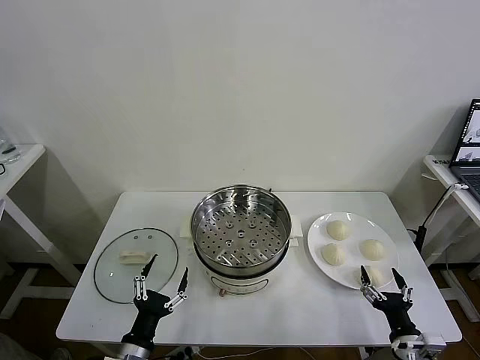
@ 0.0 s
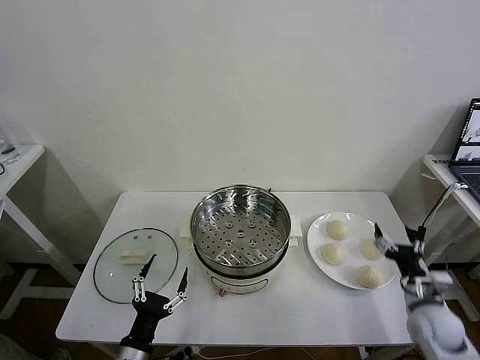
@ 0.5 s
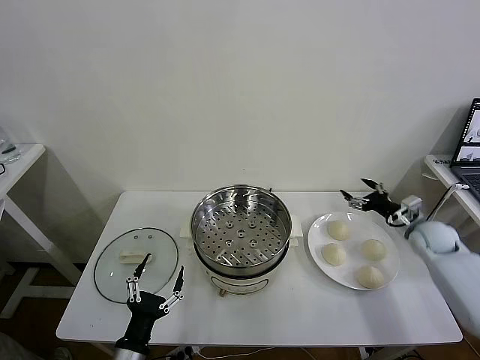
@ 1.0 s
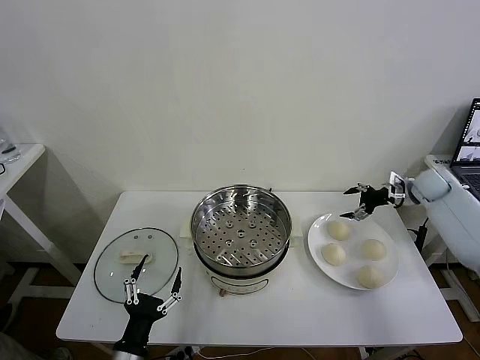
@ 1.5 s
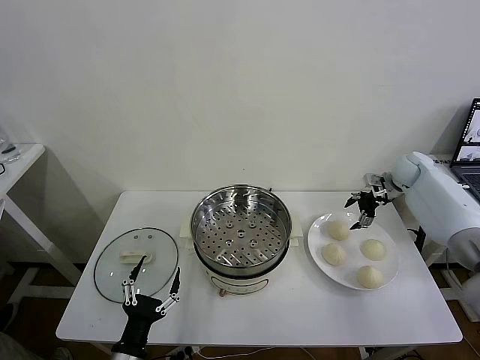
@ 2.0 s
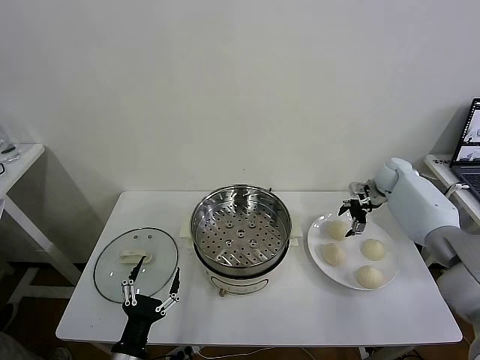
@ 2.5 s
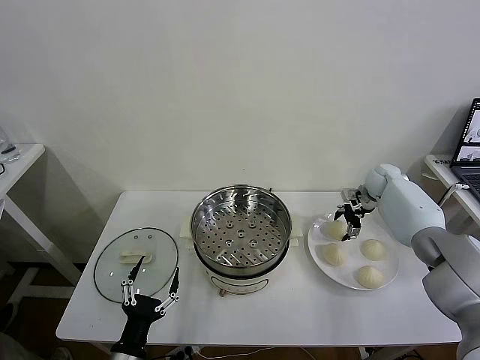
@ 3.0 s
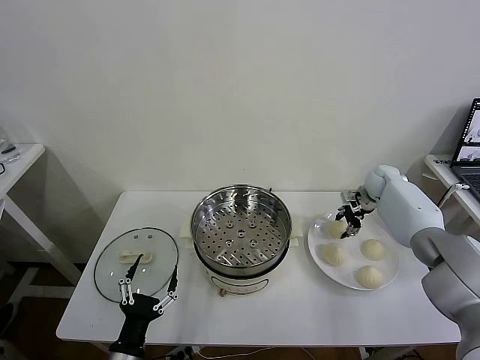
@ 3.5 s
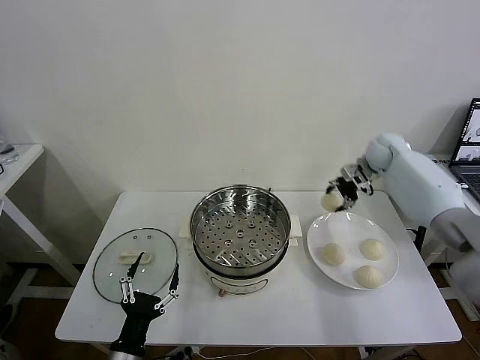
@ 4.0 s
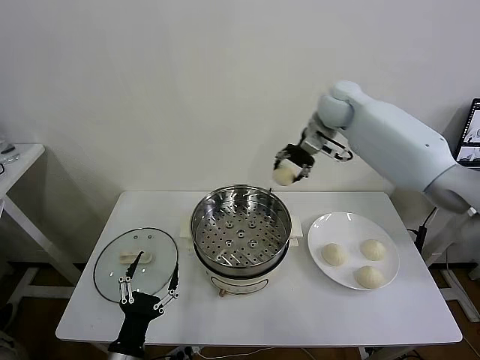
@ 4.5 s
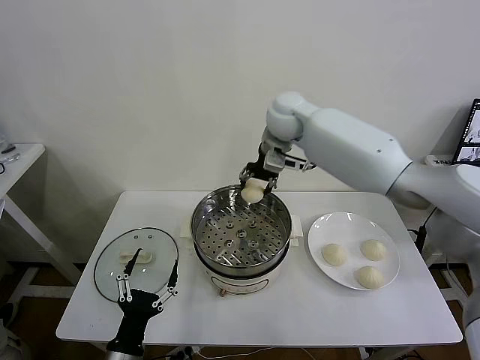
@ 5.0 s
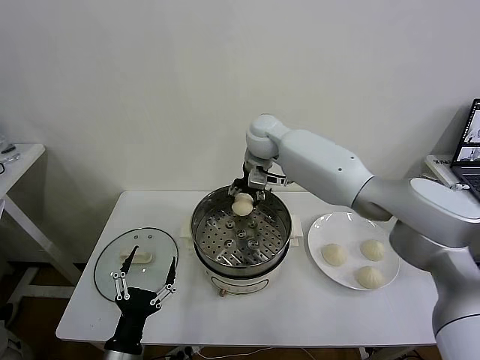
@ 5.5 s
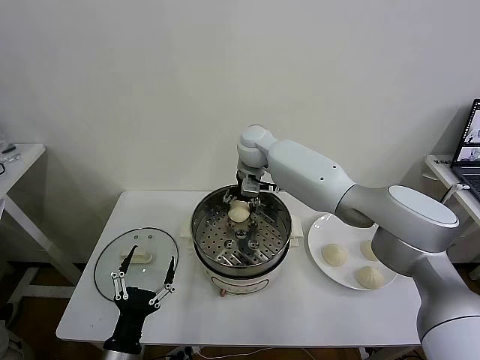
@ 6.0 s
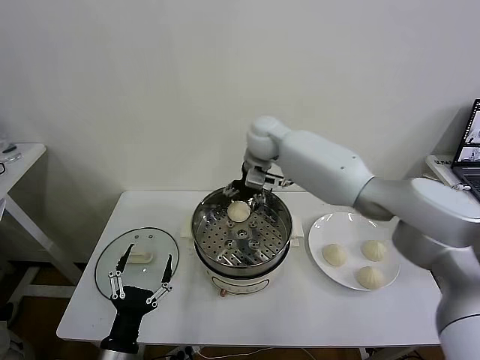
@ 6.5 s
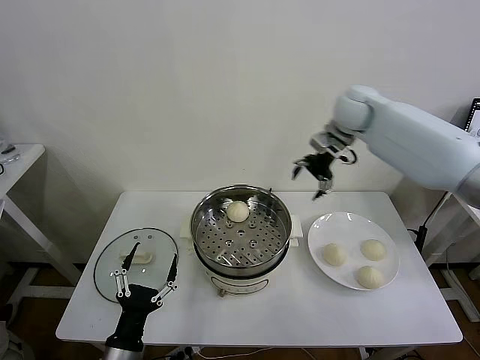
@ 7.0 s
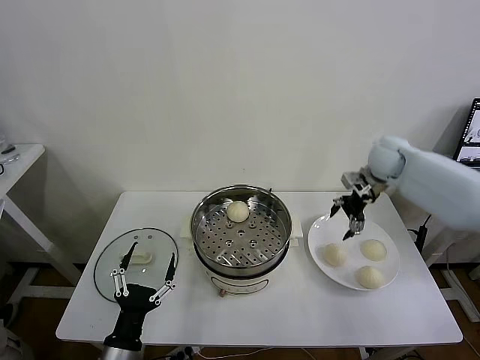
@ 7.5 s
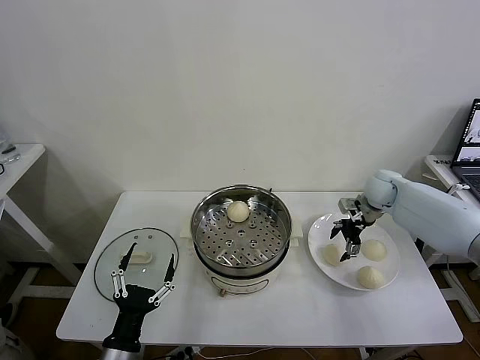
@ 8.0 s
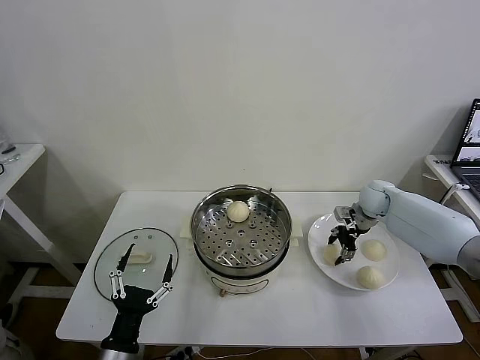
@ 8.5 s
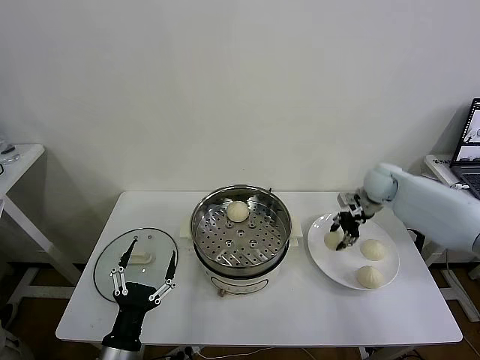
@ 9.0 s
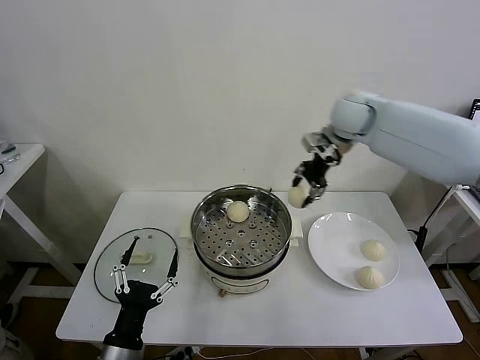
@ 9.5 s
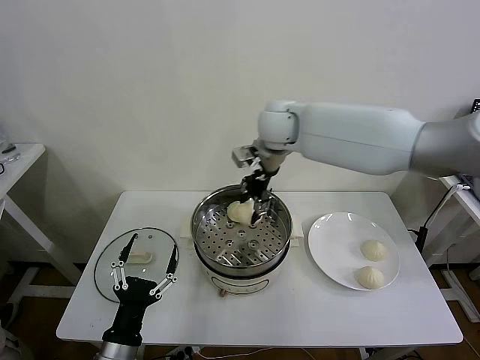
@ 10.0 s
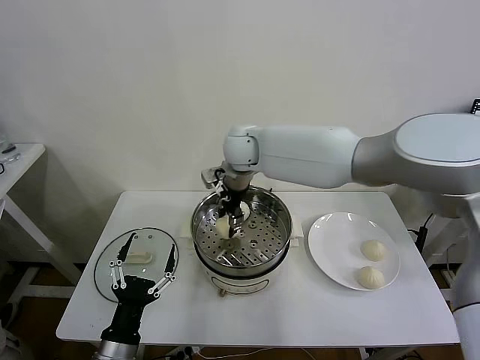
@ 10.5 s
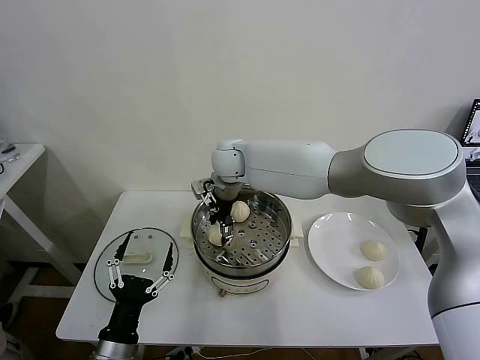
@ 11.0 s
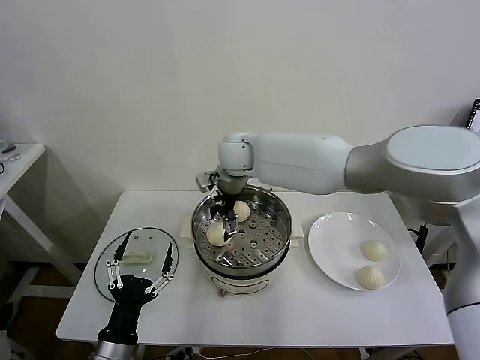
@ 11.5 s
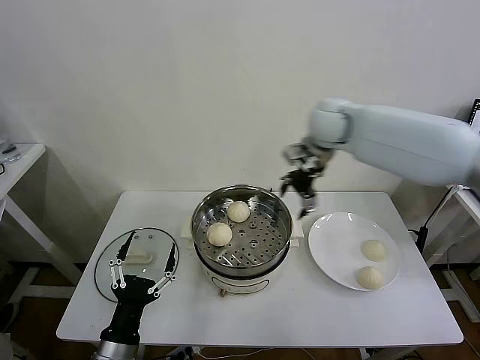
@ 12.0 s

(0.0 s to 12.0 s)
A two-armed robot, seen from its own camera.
Task of the whole recording: take steamed baozi put them in steamer then cover it.
Step, 0.0 s - 3.0 s: Grasp the baozi in the plate with right gripper.
Step, 4.0 s - 6.0 s: Place the baozi on the steamer with right gripper.
Step, 6.5 s - 8.5 s: Grasp the baozi in the plate with right gripper.
Step, 9.0 s - 11.0 s: Place the baozi on the steamer with right gripper.
2.0 s - 4.0 s: The right gripper shifts some 15 cm to the left and upward, and closes its fingers.
4.0 s - 6.0 s: The right gripper heads to the left, covering some 30 cm, and opens up.
6.0 s - 8.0 s: The right gripper moves to the right, roughly 35 cm.
8.0 s - 10.0 s: The right gripper shifts some 35 cm to the left and upward, and closes its fingers.
10.0 s - 12.0 s: The right gripper shifts roughly 15 cm to the right, and opens up.

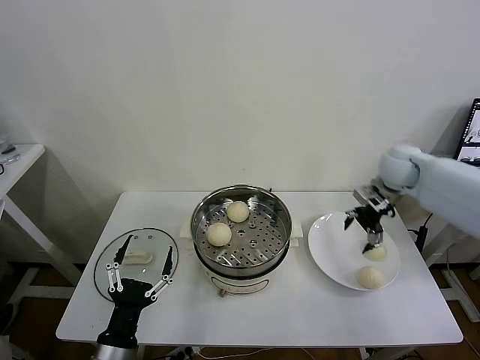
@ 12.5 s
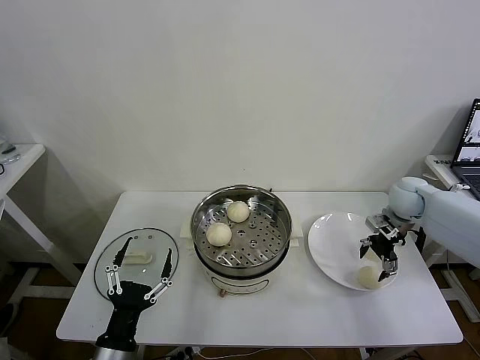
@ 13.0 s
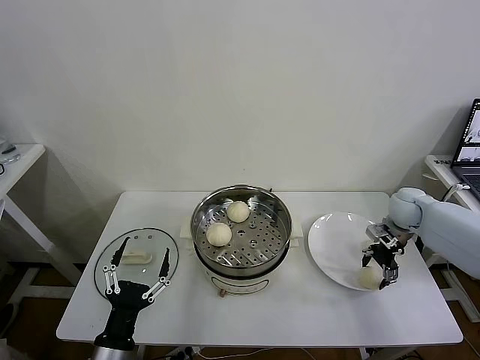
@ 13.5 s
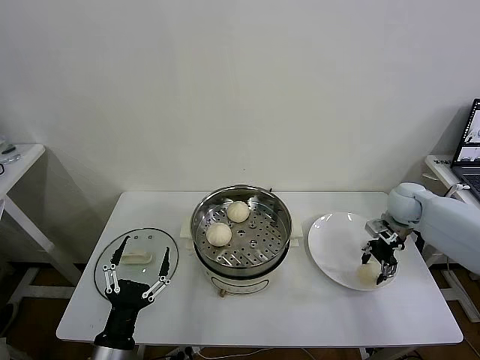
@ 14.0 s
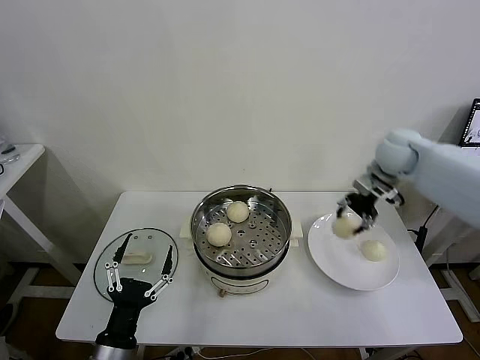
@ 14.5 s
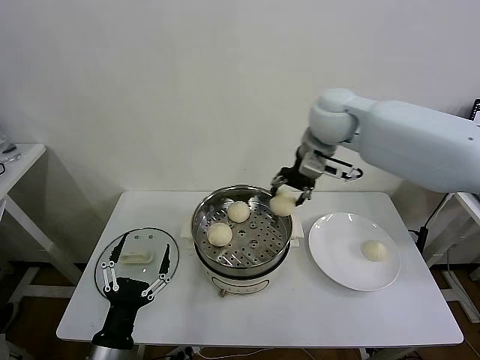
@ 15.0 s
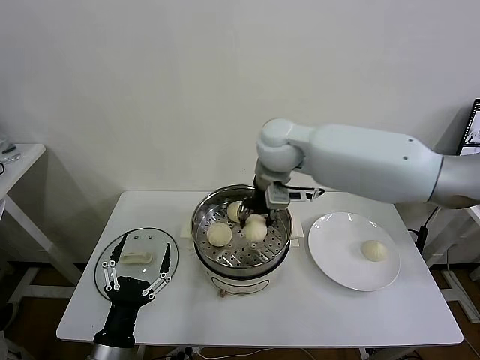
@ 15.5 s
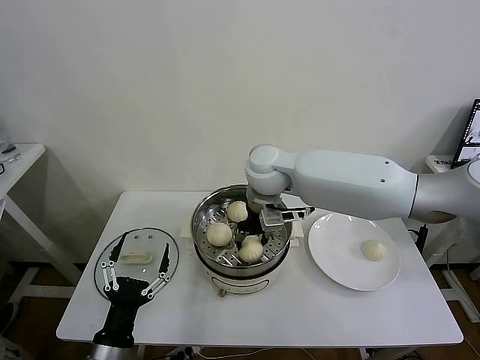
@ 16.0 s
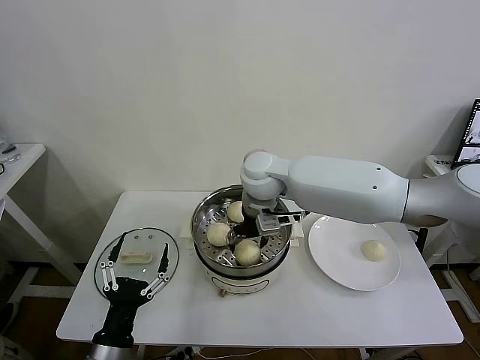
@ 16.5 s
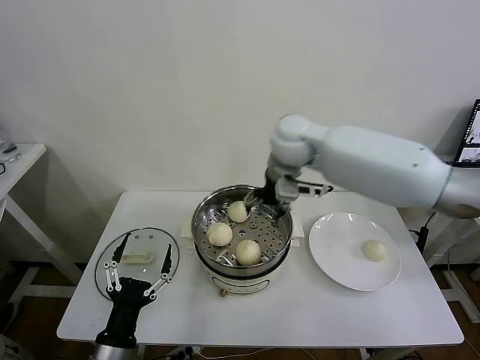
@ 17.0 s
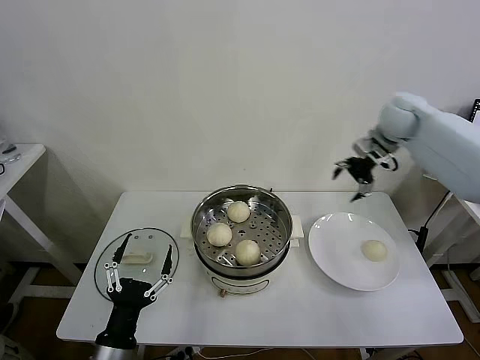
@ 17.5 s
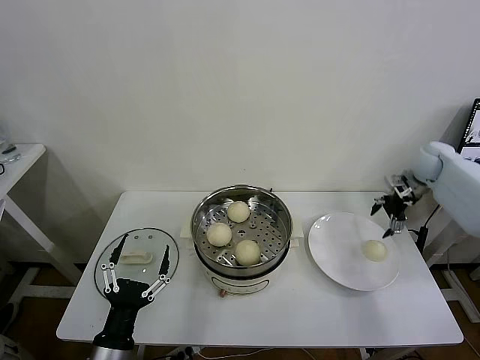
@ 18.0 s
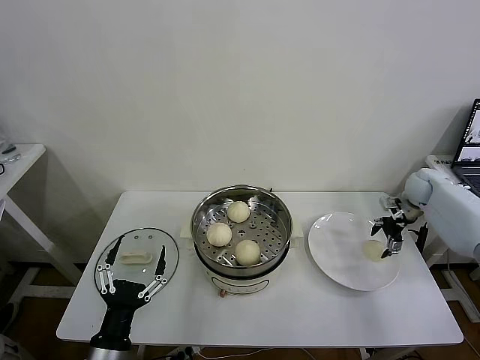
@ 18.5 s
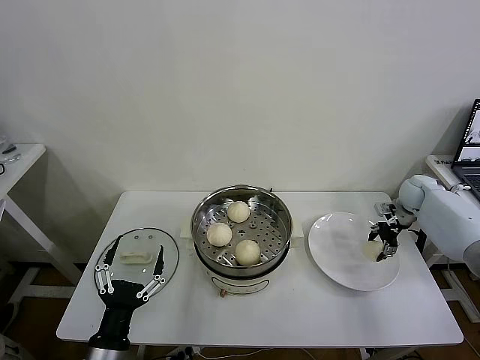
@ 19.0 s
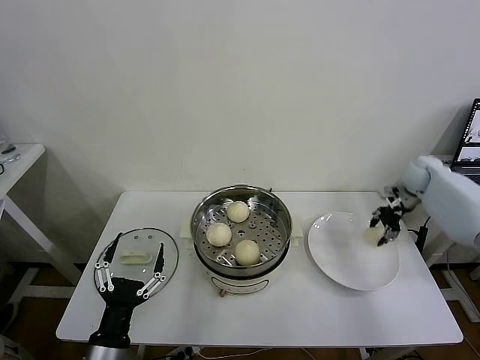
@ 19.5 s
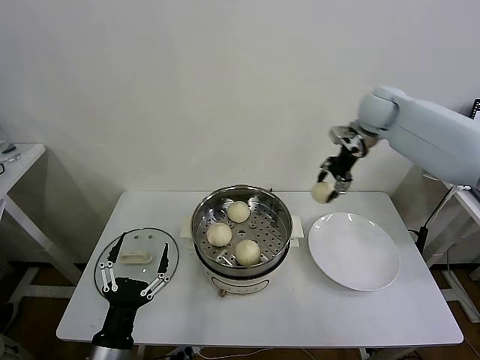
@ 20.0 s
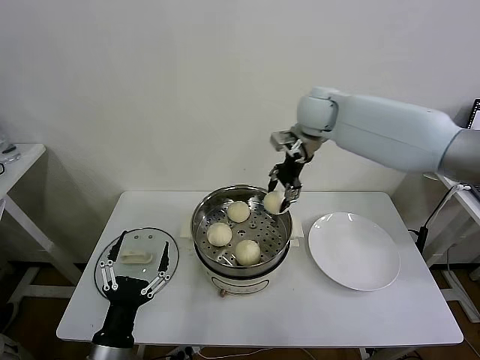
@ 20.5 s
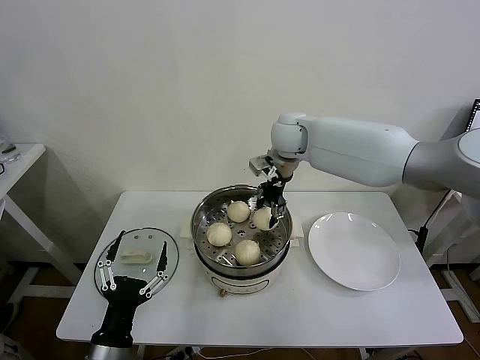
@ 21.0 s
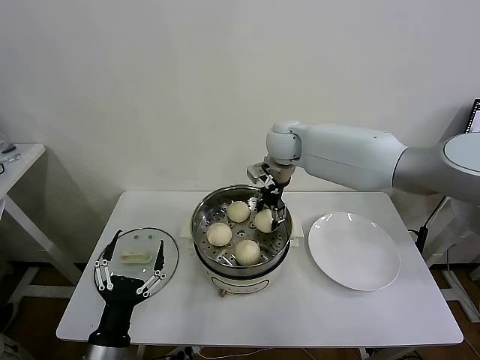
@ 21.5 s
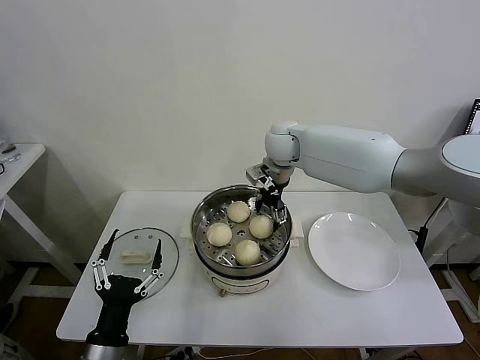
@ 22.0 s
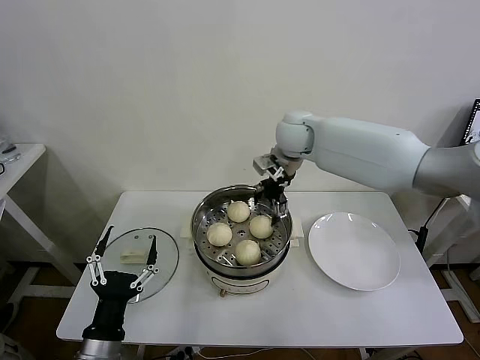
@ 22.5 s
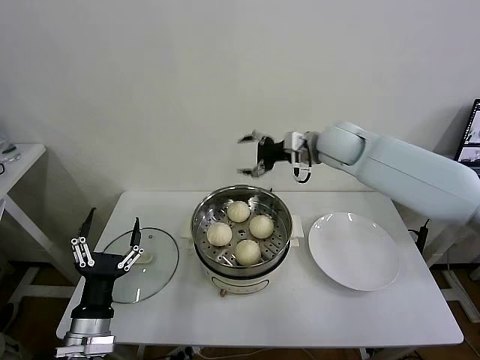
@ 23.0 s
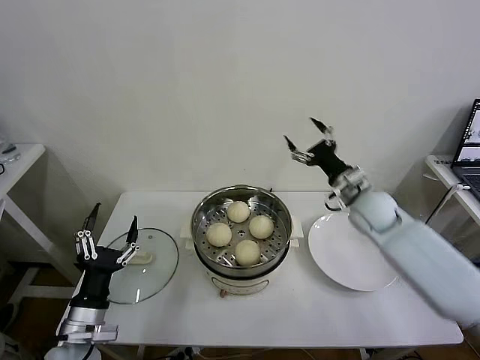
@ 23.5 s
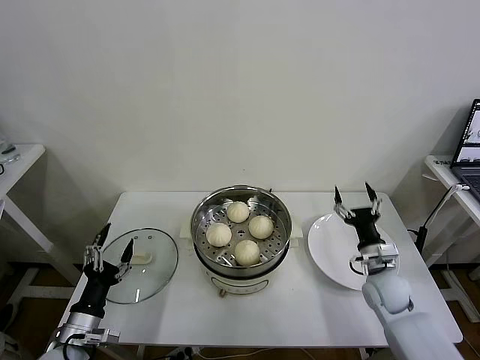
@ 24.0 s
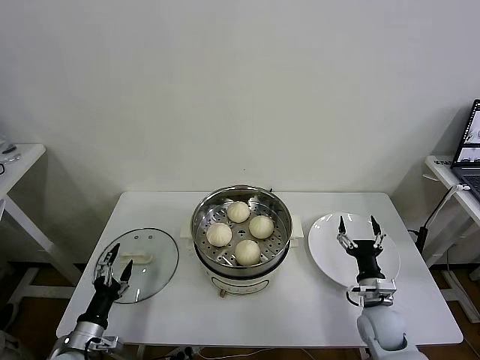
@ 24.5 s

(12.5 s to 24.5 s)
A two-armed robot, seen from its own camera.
Task of the whole recording: take steamed baozi put them in steamer then cover it.
Step, 14.0 s - 16.5 s: Place the baozi on the steamer with right gripper.
Step, 17.0 s - 19.0 s: Grasp the baozi in the plate with right gripper.
Step, 19.5 s - 22.0 s: Place the baozi on the steamer with right gripper.
12.5 s - 14.5 s: The right gripper moves upward, roughly 5 cm, and closes up.
14.5 s - 16.5 s: The right gripper is displaced to the left by about 30 cm, and opens up.
16.5 s - 18.5 s: The right gripper heads to the right, covering about 40 cm.
18.5 s - 20.5 s: The right gripper heads to the left and upward, covering approximately 40 cm, and closes.
20.5 s - 22.5 s: The right gripper opens its fingers.
22.5 s - 24.5 s: The left gripper moves to the left, downward and forward, approximately 15 cm, while the right gripper moves downward, backward and to the right, approximately 50 cm.

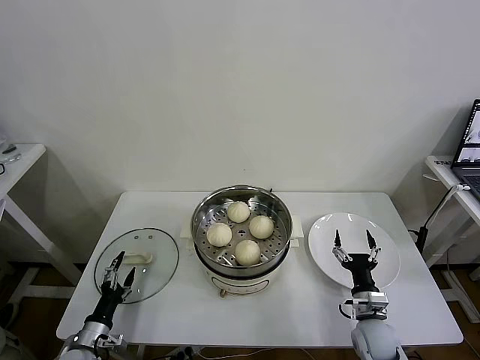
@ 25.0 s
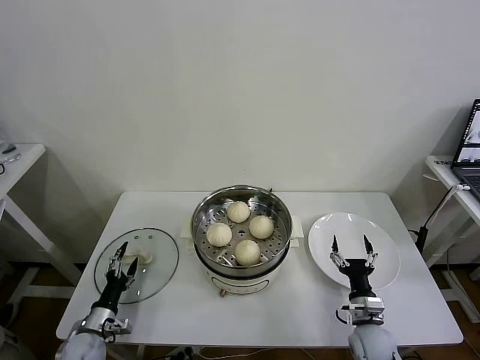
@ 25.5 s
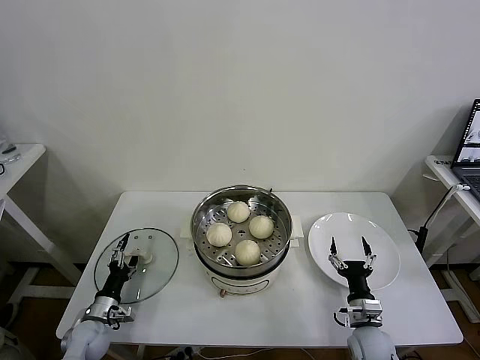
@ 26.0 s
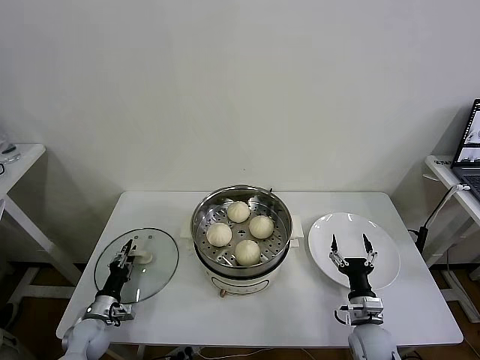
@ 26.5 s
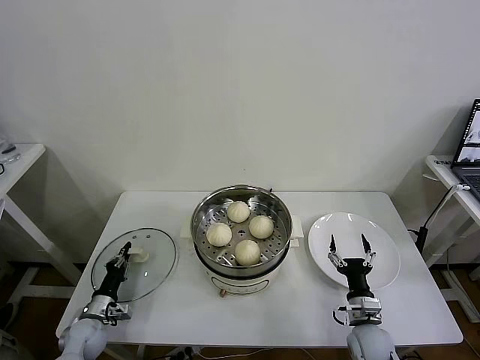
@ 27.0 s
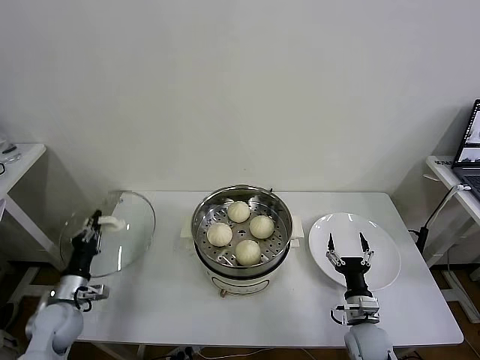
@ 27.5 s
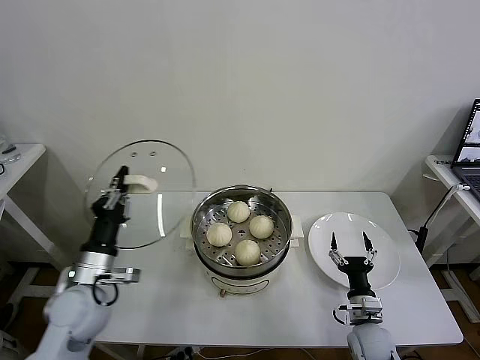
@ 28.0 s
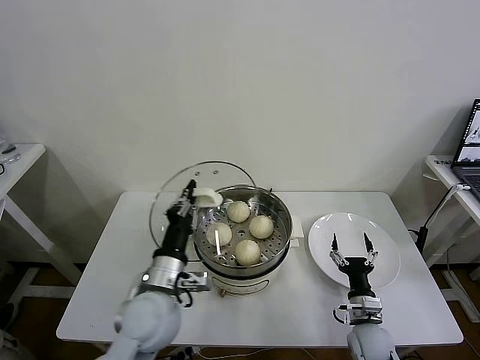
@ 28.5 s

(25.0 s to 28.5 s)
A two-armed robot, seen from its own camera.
Task of the whole recording: take steamed baozi put them in steamer then cover it.
25.0 s - 27.0 s: The left gripper goes approximately 10 cm forward, and closes its fingers.
27.0 s - 28.5 s: The left gripper is displaced upward and to the right by approximately 35 cm.
